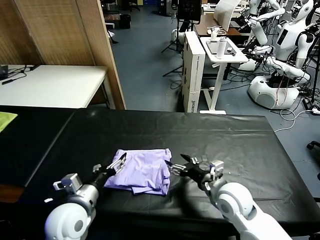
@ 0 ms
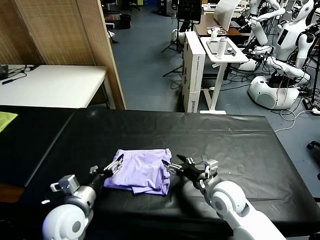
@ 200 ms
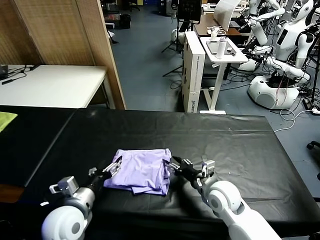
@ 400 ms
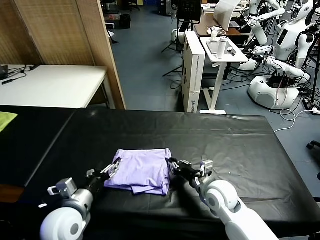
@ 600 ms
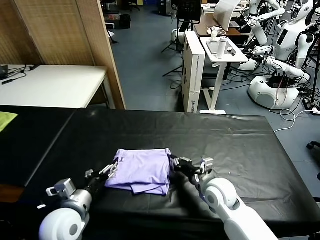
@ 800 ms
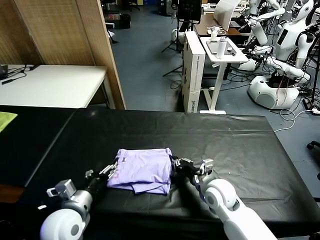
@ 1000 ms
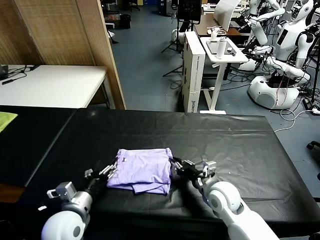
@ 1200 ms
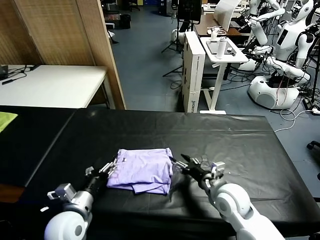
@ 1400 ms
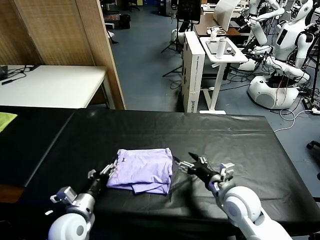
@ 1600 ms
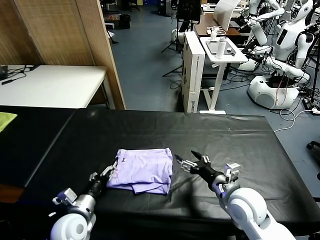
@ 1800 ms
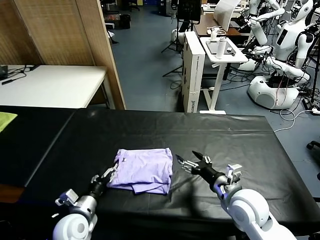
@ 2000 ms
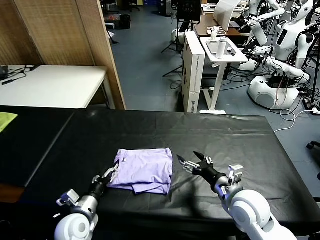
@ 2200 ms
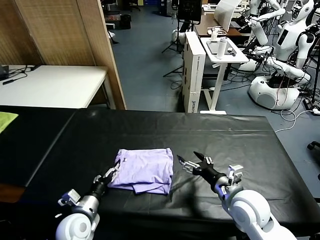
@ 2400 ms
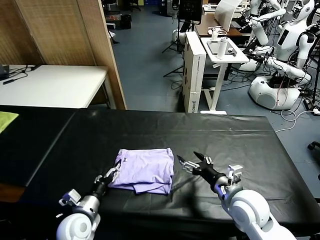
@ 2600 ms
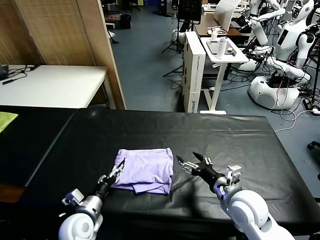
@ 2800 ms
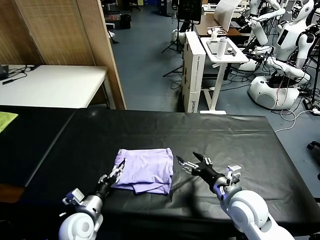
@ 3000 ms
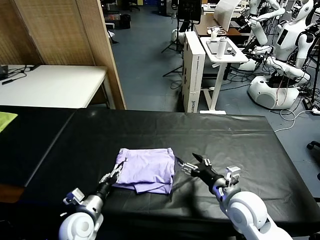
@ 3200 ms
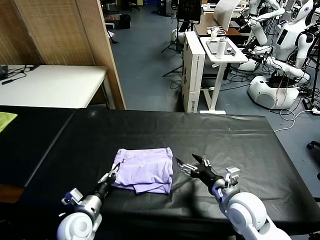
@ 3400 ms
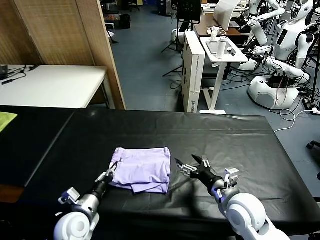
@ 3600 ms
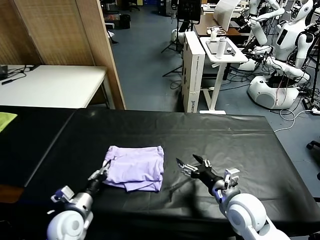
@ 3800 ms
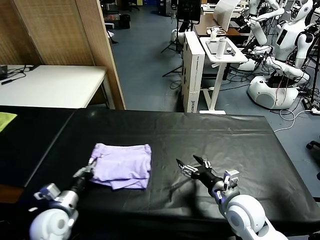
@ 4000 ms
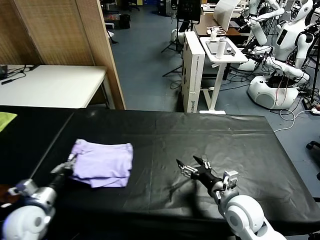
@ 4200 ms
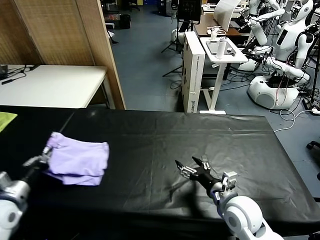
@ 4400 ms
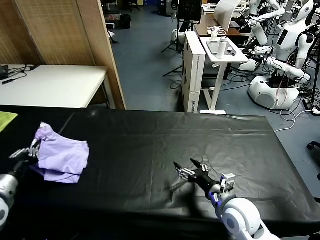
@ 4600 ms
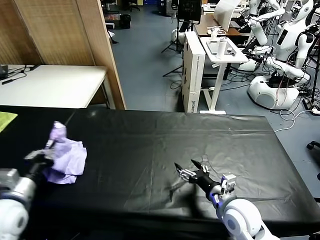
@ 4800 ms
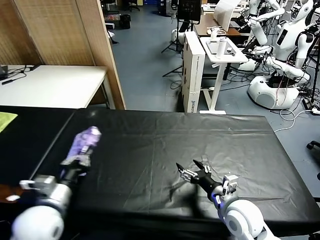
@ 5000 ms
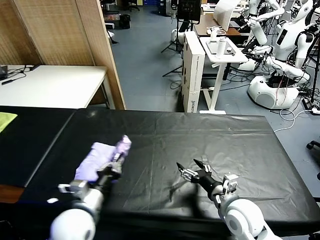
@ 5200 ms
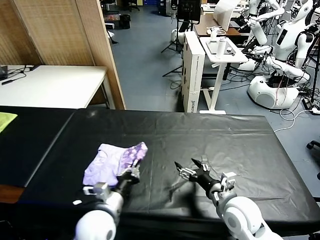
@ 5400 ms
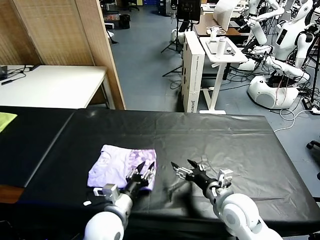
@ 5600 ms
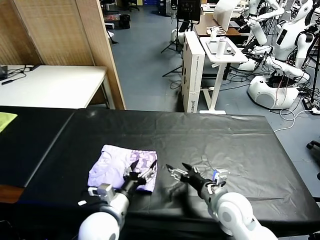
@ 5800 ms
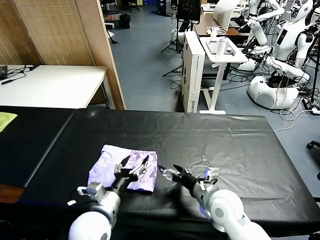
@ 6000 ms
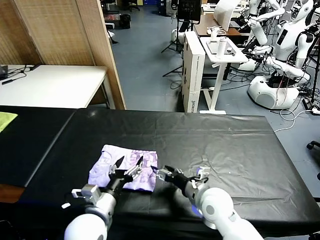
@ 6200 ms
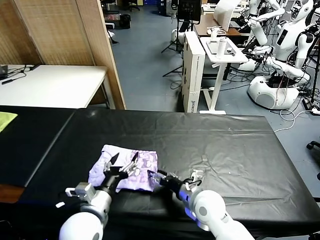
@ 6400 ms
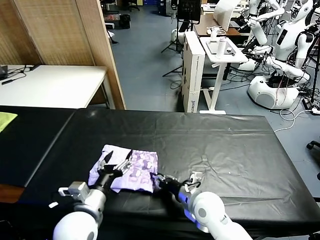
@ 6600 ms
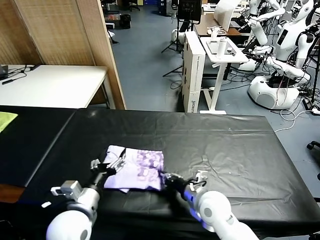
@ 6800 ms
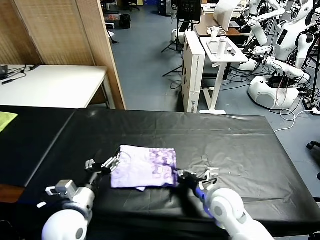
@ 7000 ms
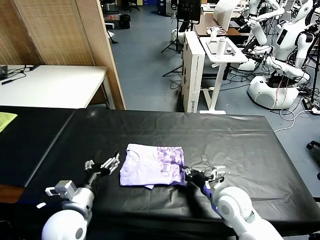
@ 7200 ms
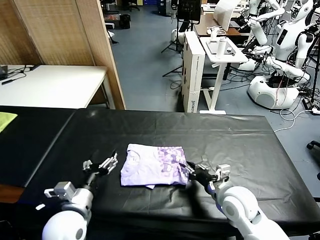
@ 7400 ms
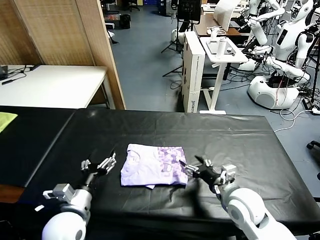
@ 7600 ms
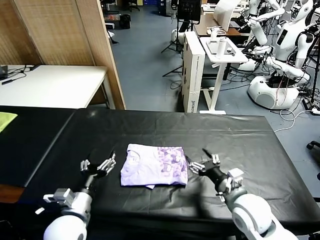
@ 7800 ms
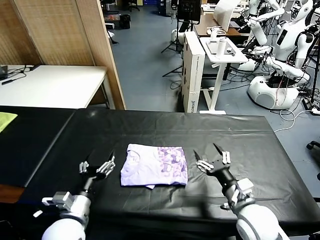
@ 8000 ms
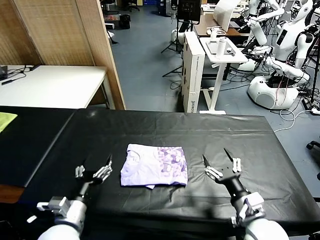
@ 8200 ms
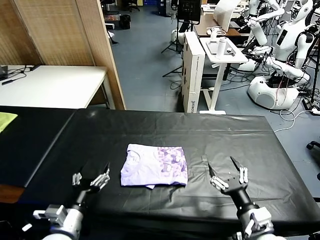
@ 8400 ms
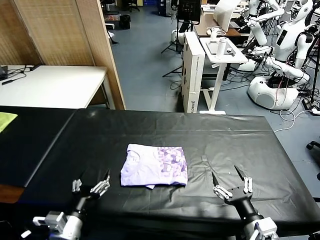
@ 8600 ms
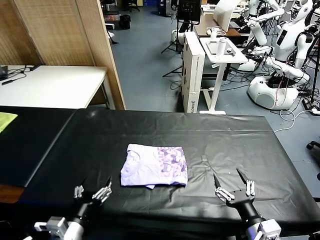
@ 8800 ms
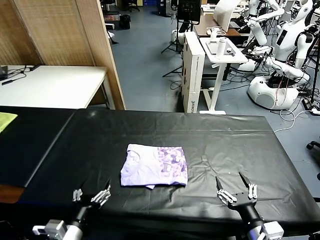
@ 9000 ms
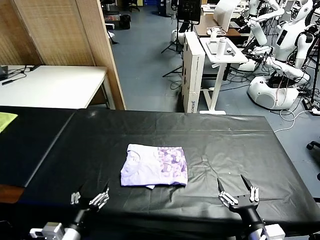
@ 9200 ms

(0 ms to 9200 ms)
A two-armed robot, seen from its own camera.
Task of the whole recording: fold and organize the clothes.
Step, 0 ms - 5800 ms: Flip the folded clothes over with left gripper.
Step, 6000 ms - 7600 ms: Drag the clothes to the center of the table.
0 ms - 1600 ms: The left gripper goes about 5 cm downward, while the right gripper closes and opens again.
1600 ms - 3000 ms: There are only small adjustments of the grippers.
3000 ms - 4600 ms: The left gripper travels to the left and upward by roughly 25 cm, and closes up.
4600 ms - 6200 ms: The left gripper goes some 25 cm to the right, and opens its fingers, while the right gripper moves to the left, approximately 5 cm.
6200 ms - 7600 ms: The left gripper is displaced to the left by roughly 5 cm; the right gripper heads to the right, covering roughly 5 cm, and closes, then reopens.
7600 ms - 9200 ms: The left gripper moves backward, approximately 10 cm, while the right gripper travels backward by some 15 cm.
